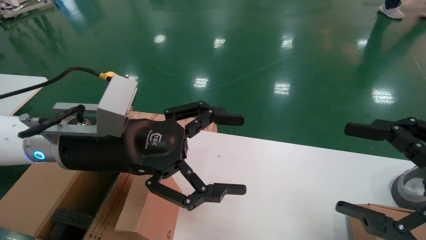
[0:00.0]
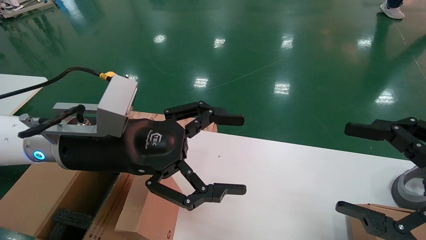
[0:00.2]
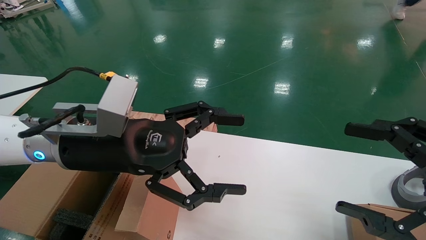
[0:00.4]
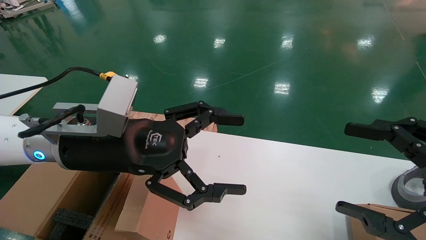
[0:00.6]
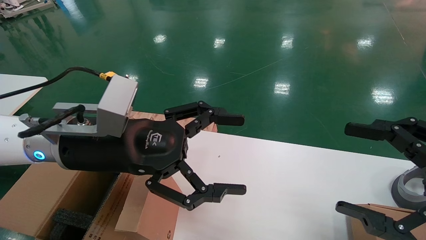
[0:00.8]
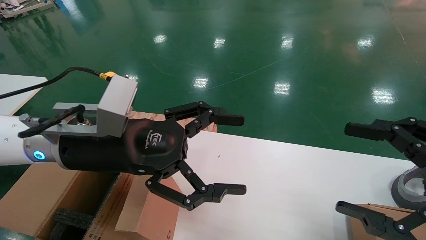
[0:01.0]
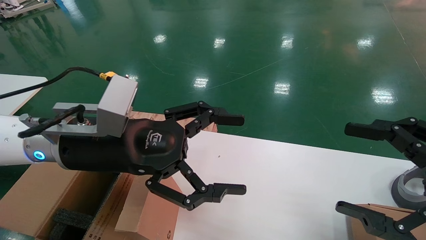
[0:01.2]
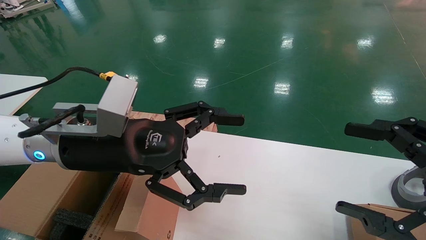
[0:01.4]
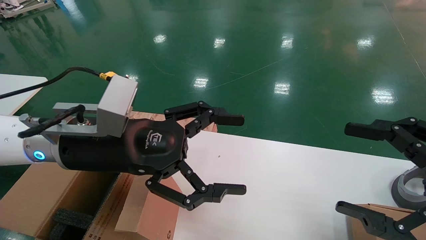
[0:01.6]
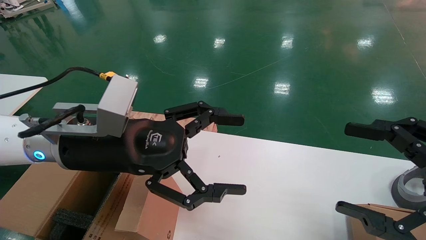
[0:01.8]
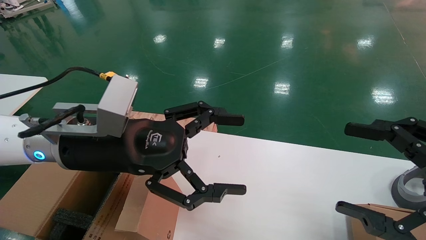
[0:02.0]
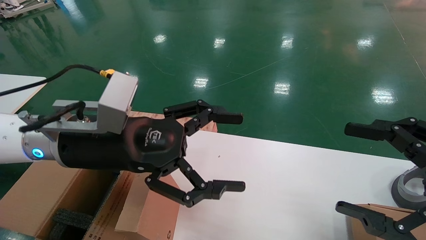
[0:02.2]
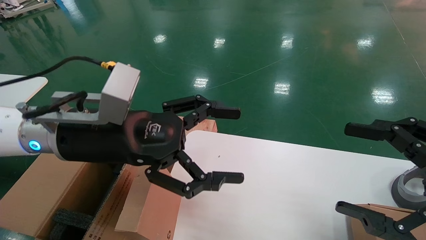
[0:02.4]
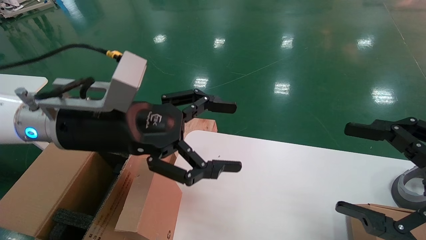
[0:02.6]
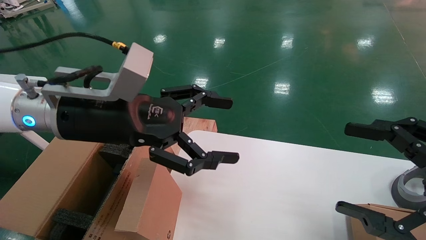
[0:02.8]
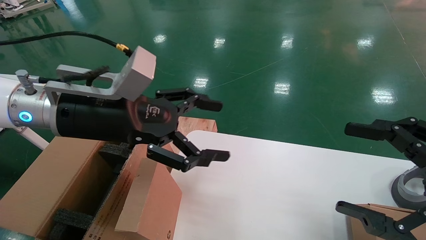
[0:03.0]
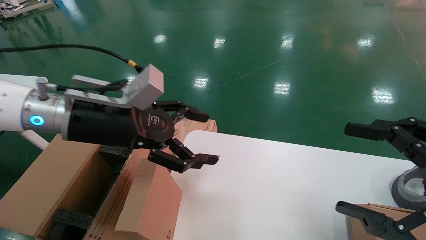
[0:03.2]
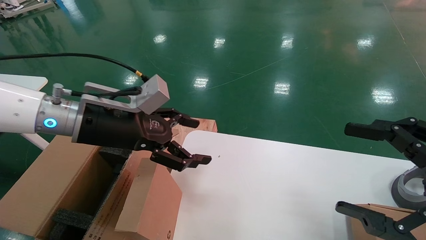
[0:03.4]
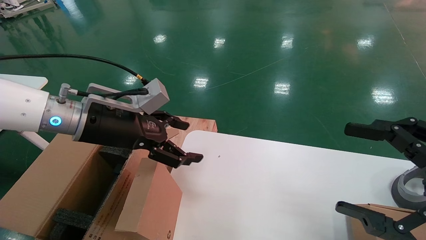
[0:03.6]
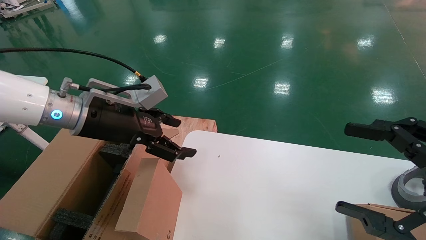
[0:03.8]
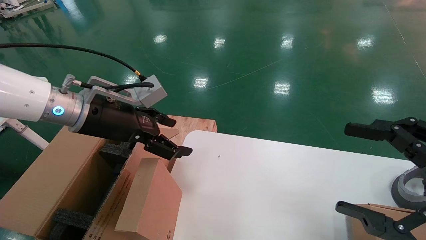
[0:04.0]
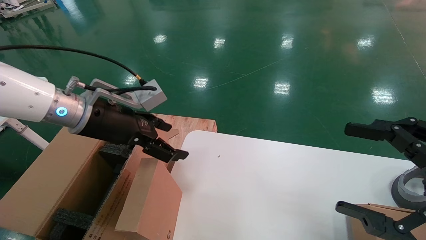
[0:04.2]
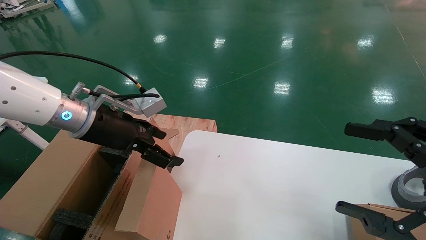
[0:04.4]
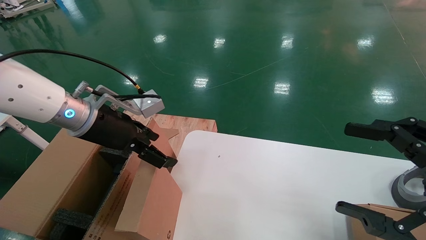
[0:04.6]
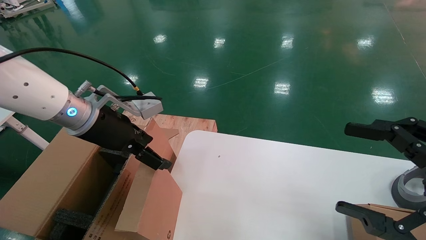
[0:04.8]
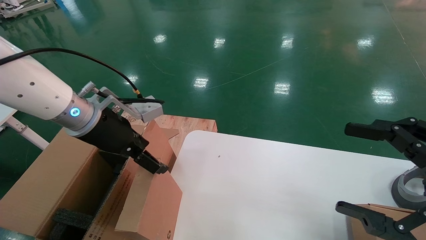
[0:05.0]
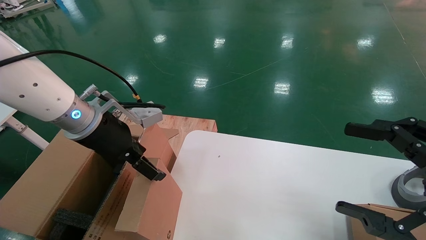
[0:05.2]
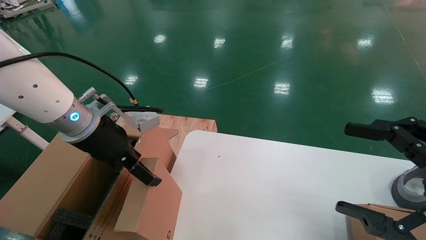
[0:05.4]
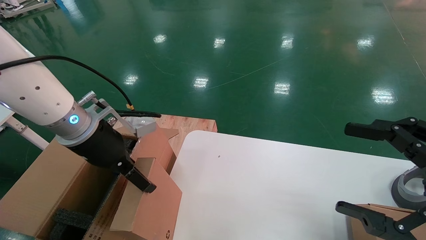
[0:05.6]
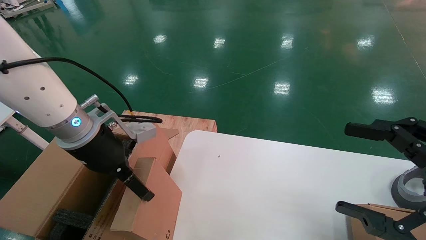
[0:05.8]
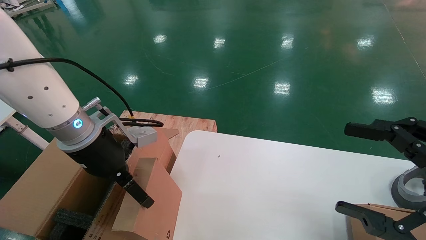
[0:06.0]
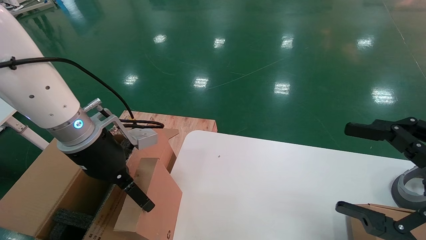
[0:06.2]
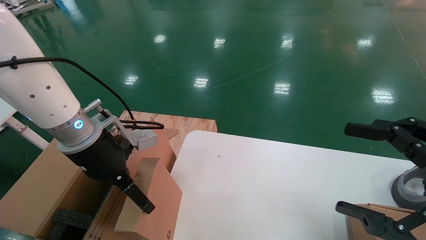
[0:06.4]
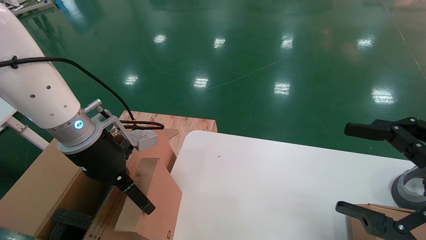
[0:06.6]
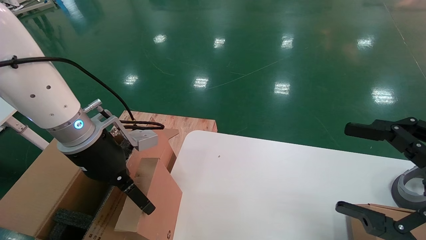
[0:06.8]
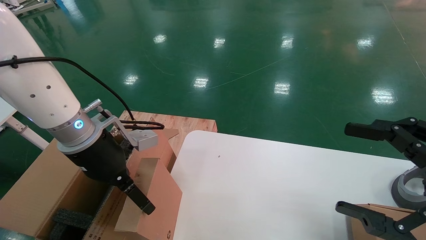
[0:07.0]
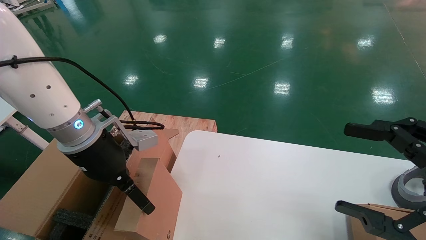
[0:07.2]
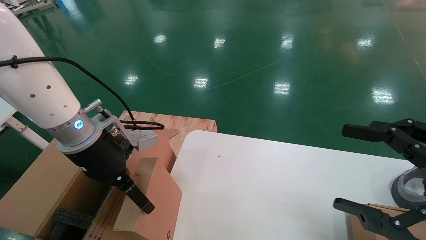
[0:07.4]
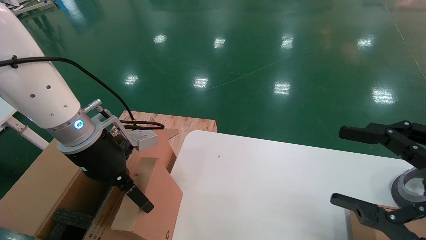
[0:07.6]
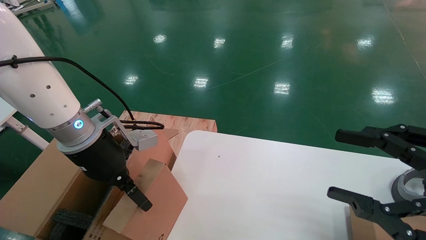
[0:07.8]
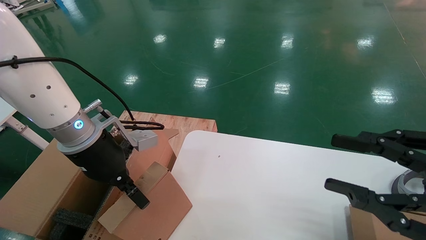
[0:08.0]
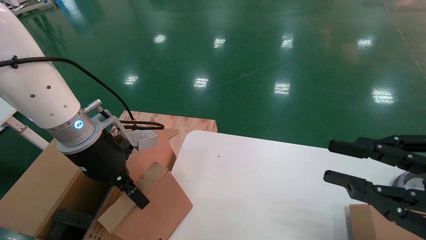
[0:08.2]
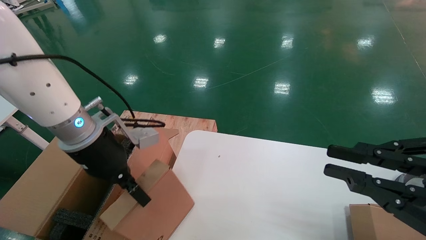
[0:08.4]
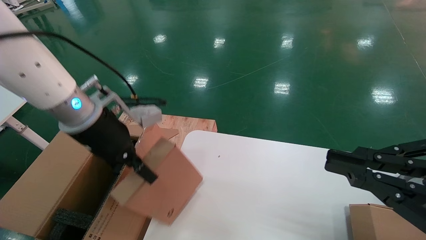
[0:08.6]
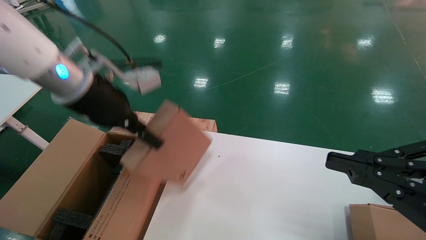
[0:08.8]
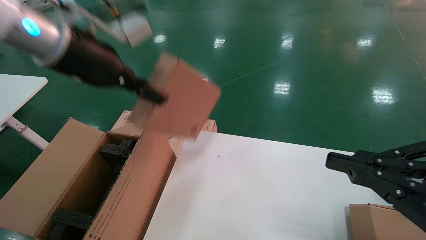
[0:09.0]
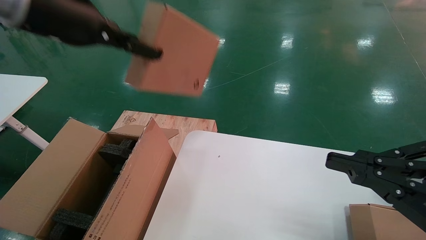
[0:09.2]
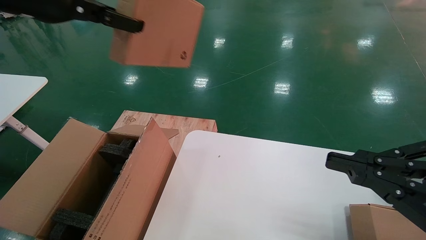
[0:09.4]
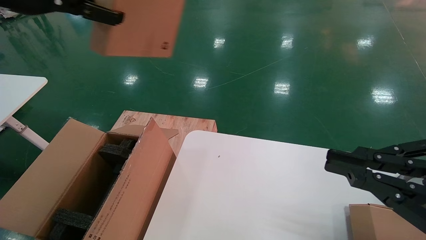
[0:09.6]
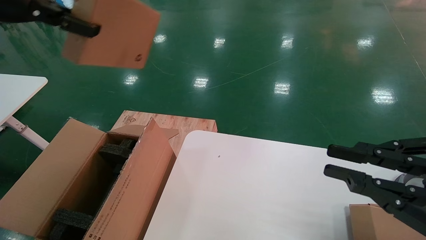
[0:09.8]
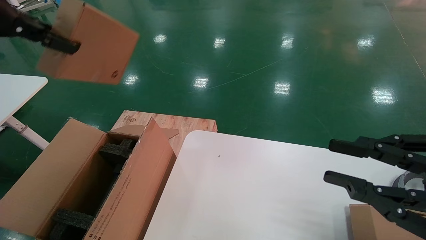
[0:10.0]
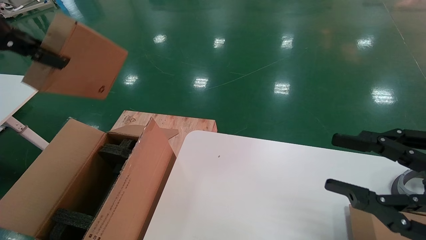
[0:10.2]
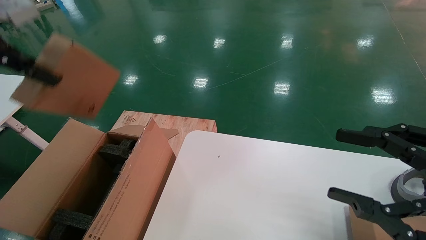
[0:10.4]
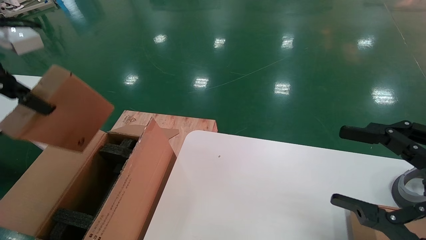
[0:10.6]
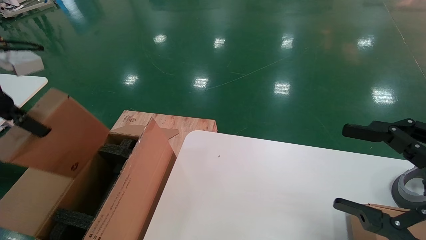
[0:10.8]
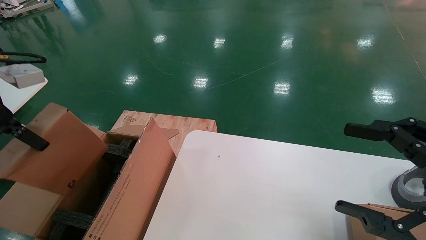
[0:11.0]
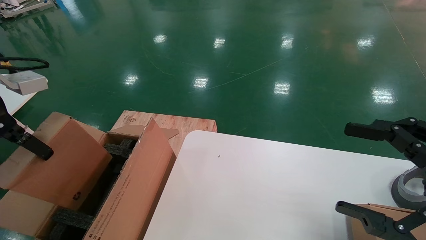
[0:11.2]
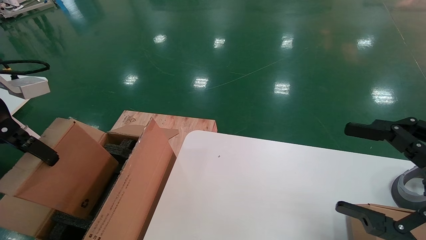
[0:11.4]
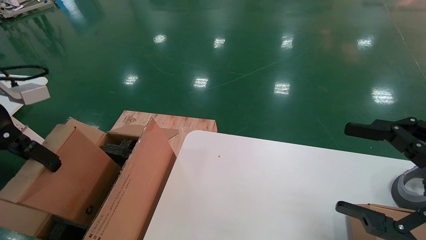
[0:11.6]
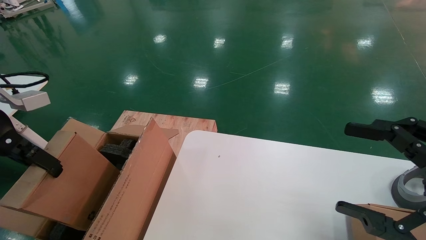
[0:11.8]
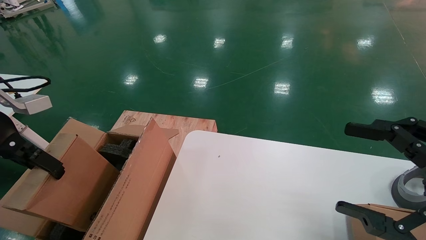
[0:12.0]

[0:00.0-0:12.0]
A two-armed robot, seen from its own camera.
Task of the whole recording: put the box on the table into the big box.
Step, 0:00.0 to 0:07.8: Grasp the paper box.
0:00.0 to 0:01.6: Neither gripper changes place.
0:03.0 to 0:04.4: The left gripper moves some 5 cm.
0:06.0 to 0:07.6: Both grippers stay about where they are.
0:07.6 to 0:09.0: The left gripper goes roughly 15 cm upward, and closes up. Meanwhile the right gripper closes up.
0:09.0 to 0:10.4: The right gripper opens. Meanwhile the left gripper shifts approximately 15 cm to the left.
0:10.4 to 0:12.0: The right gripper opens its fingers. The left gripper goes about 10 cm downward.

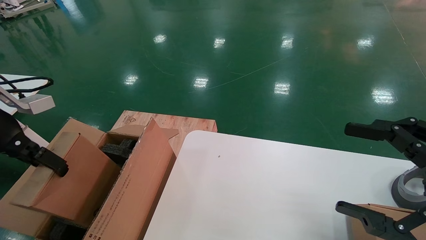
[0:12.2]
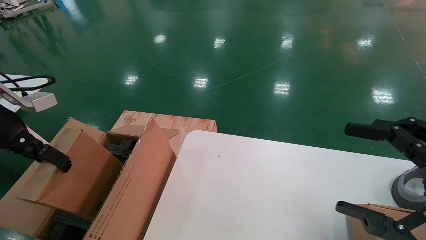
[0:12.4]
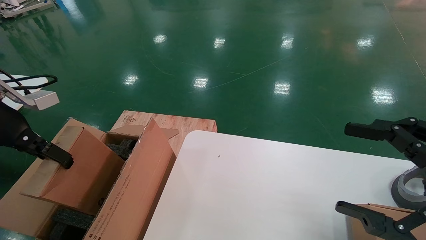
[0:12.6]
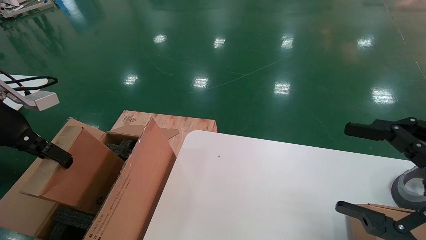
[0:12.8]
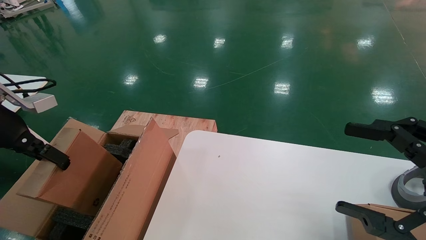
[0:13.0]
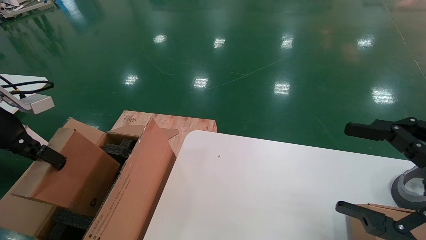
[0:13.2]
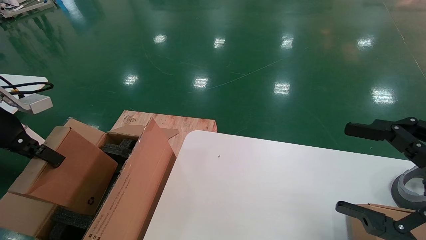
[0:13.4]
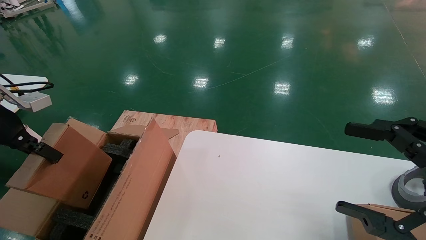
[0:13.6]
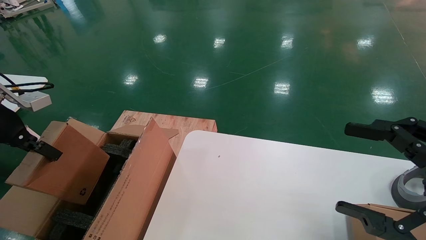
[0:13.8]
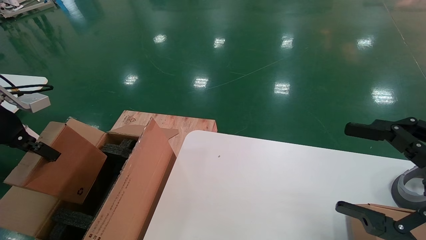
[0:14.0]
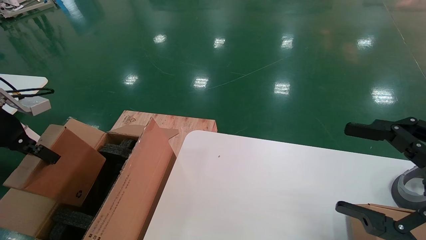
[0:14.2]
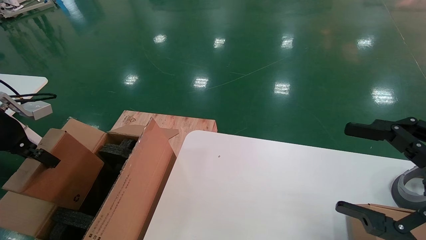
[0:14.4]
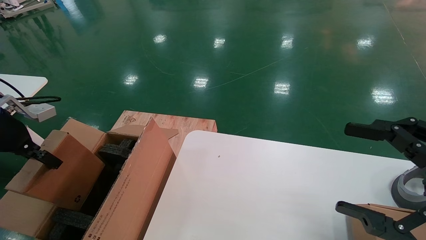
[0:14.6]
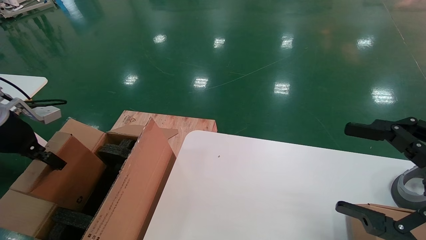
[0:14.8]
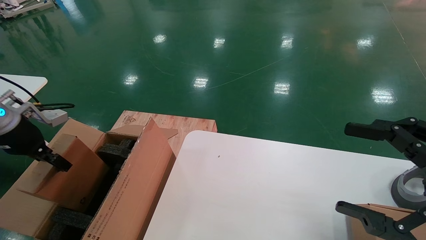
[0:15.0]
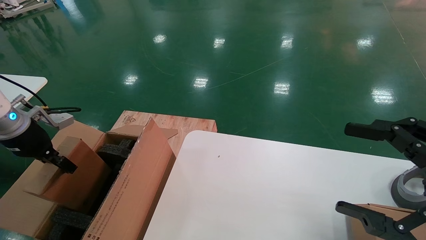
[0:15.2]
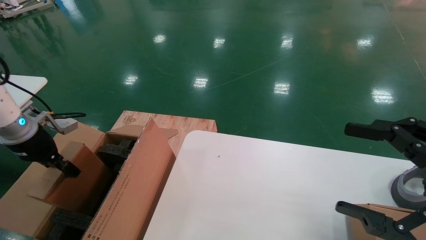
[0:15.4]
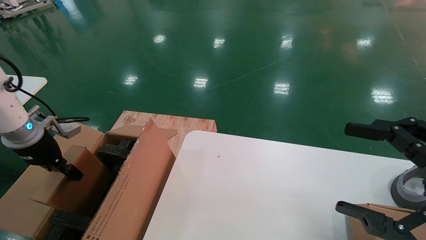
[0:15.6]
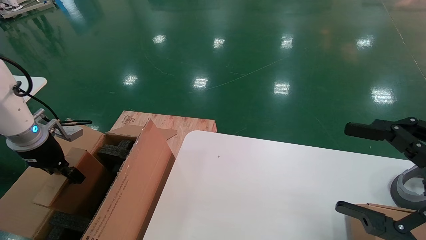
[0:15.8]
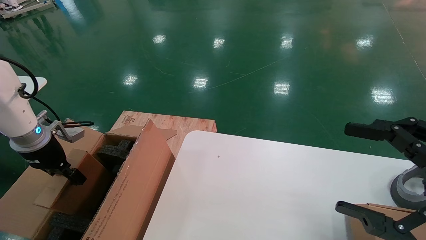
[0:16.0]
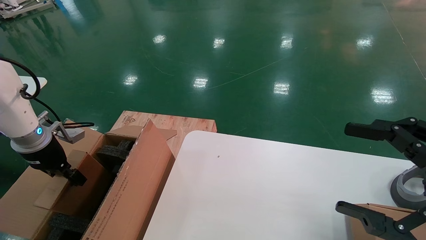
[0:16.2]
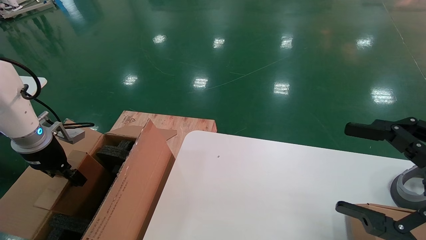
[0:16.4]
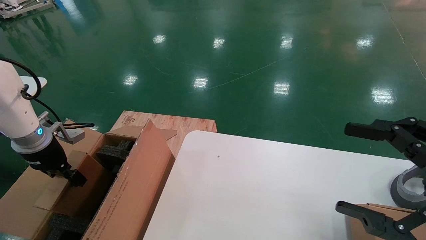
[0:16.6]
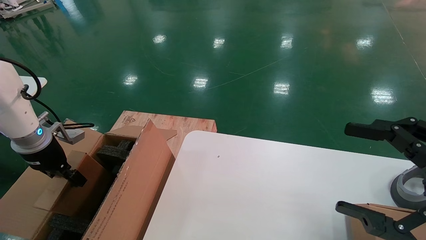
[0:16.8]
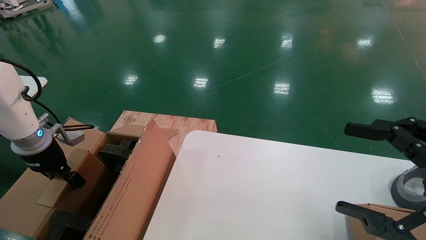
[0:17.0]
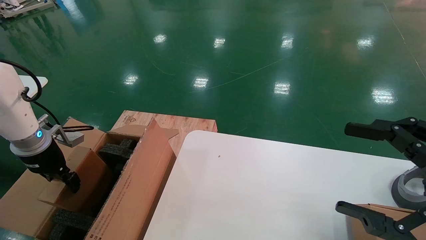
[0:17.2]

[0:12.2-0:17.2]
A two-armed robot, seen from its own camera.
Task of the whole recording: put the box on the table into the big box.
0:12.2 to 0:13.8: The left gripper is displaced to the left by some 5 cm.
0:13.8 to 0:15.6: The left gripper heads downward and forward, covering approximately 10 cm.
0:15.6 to 0:17.2: There are only small adjustments of the grippers.
